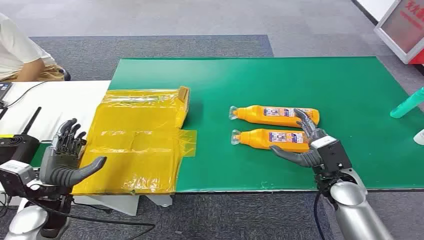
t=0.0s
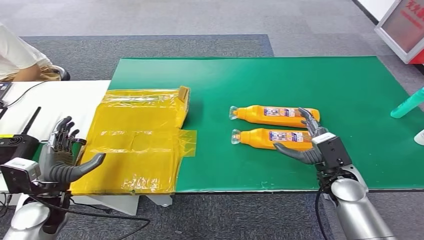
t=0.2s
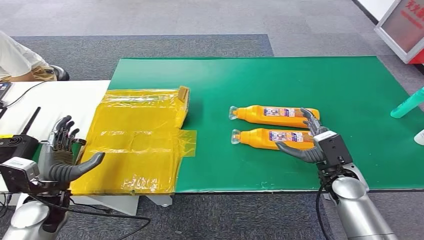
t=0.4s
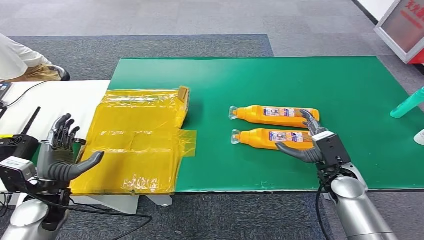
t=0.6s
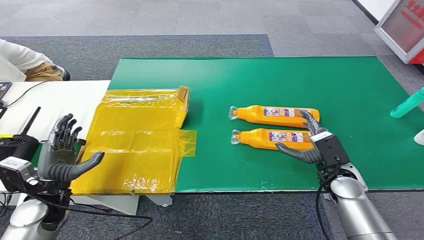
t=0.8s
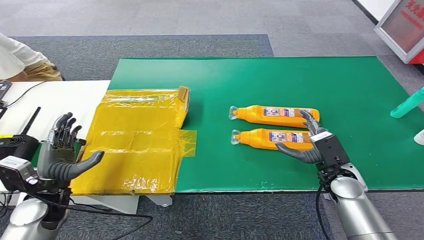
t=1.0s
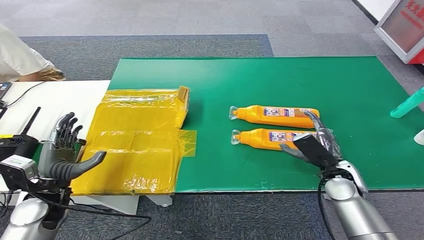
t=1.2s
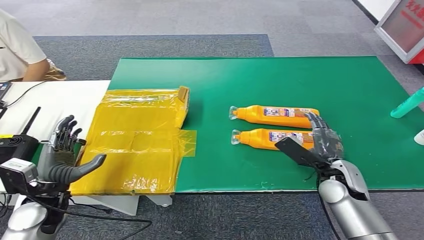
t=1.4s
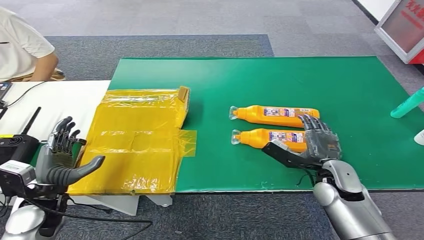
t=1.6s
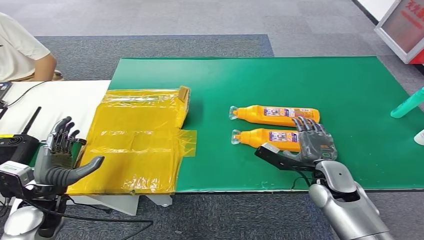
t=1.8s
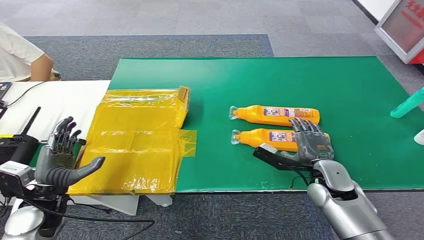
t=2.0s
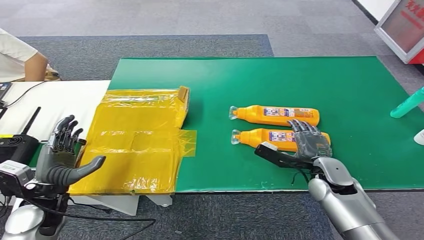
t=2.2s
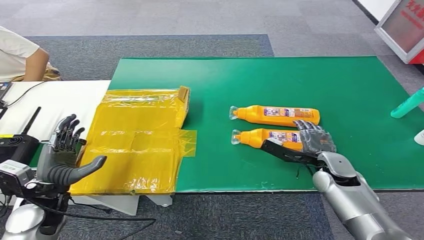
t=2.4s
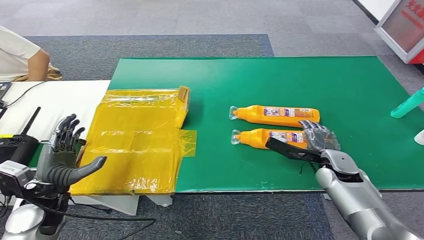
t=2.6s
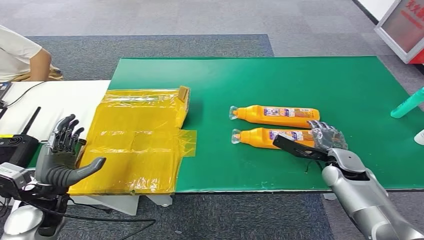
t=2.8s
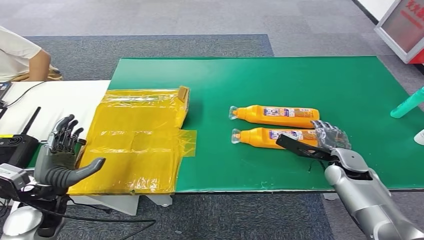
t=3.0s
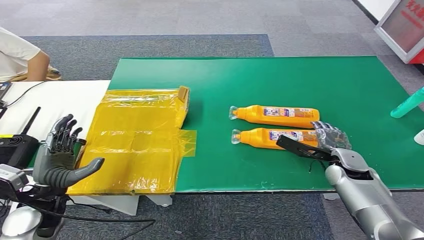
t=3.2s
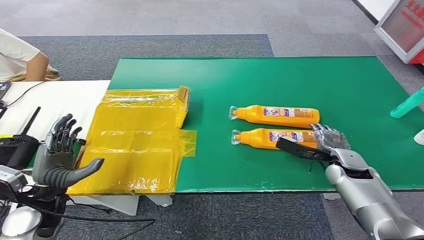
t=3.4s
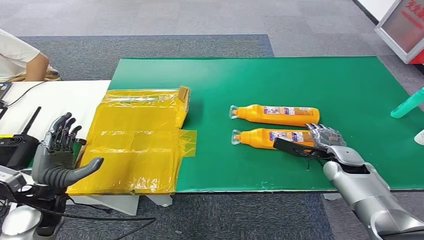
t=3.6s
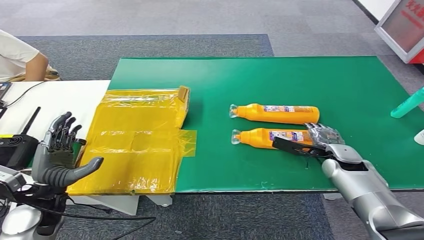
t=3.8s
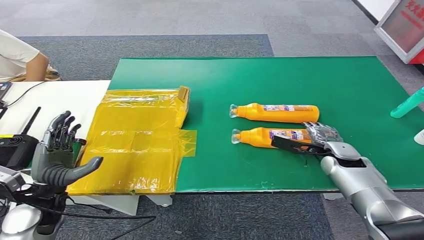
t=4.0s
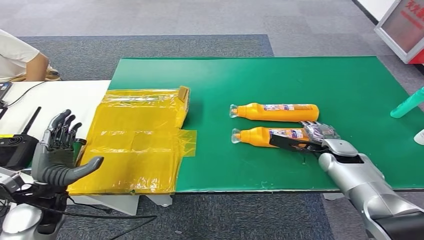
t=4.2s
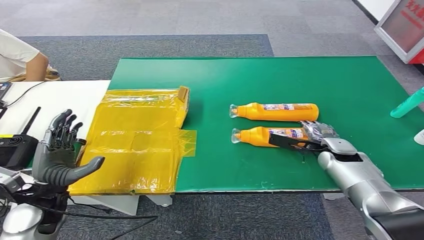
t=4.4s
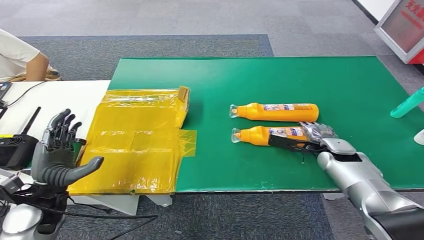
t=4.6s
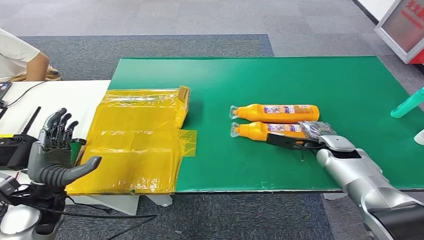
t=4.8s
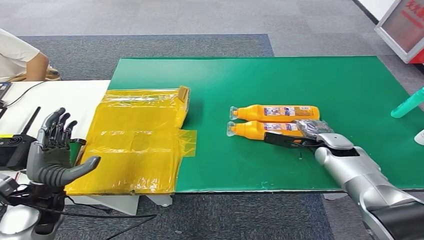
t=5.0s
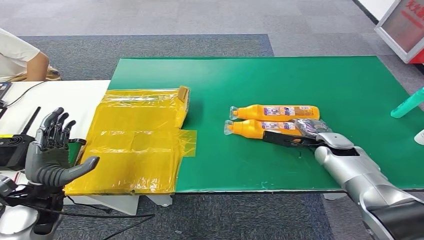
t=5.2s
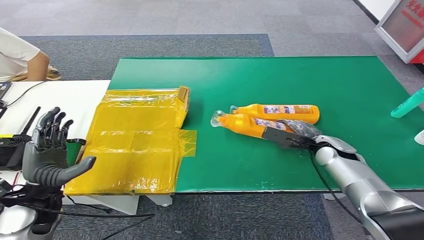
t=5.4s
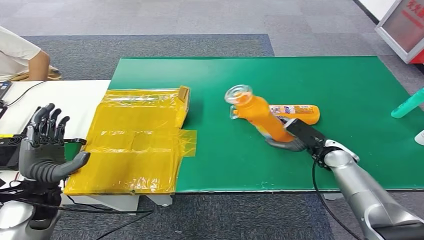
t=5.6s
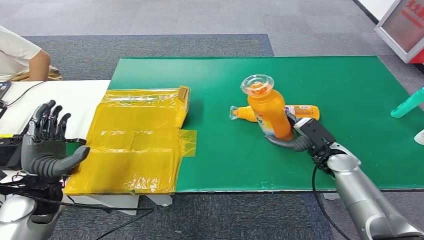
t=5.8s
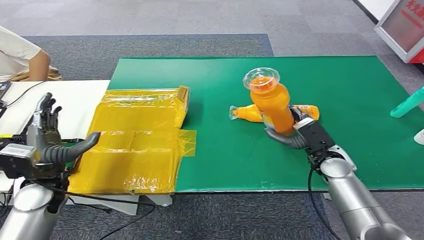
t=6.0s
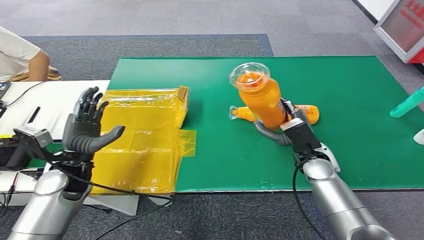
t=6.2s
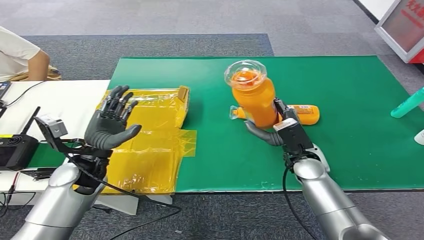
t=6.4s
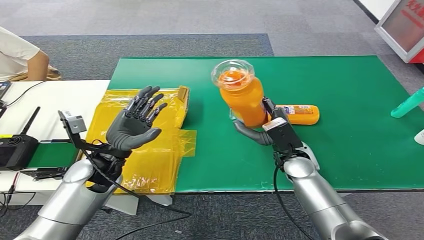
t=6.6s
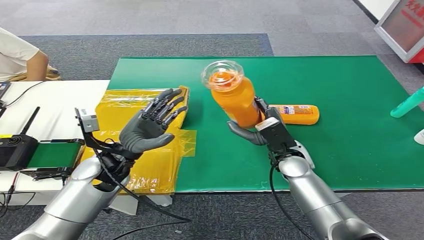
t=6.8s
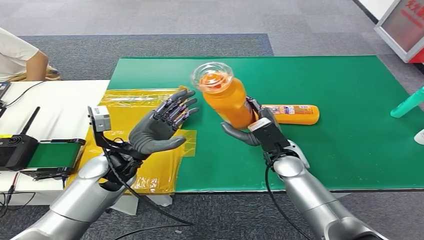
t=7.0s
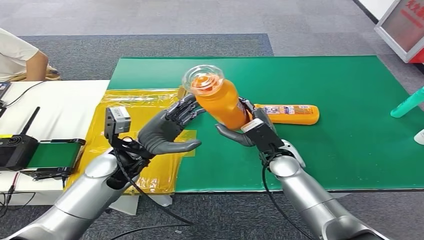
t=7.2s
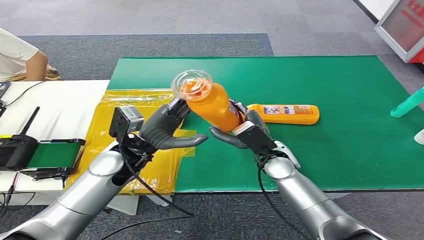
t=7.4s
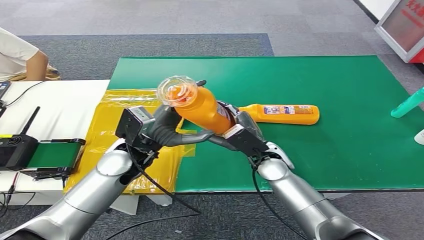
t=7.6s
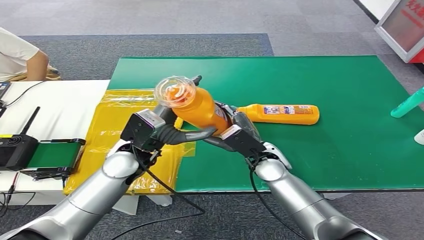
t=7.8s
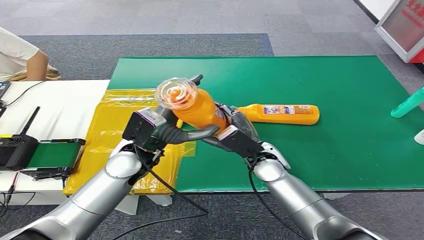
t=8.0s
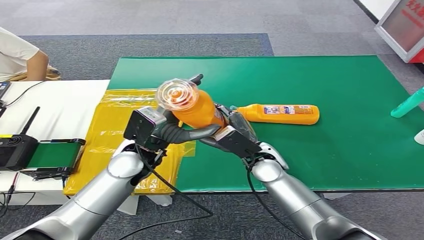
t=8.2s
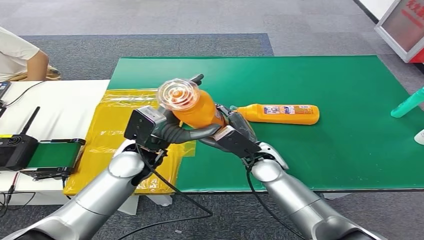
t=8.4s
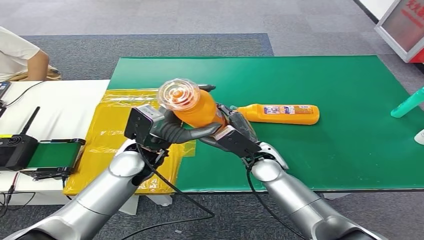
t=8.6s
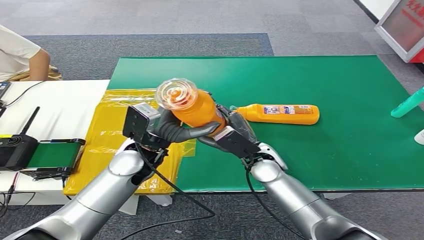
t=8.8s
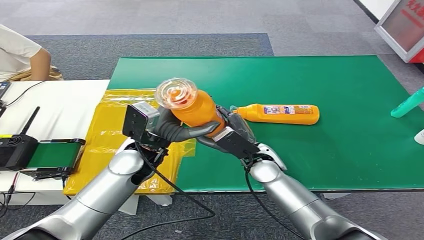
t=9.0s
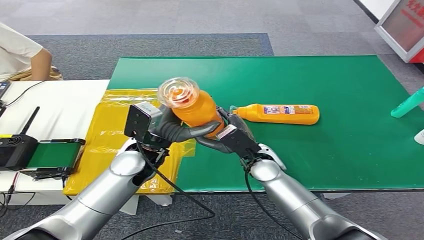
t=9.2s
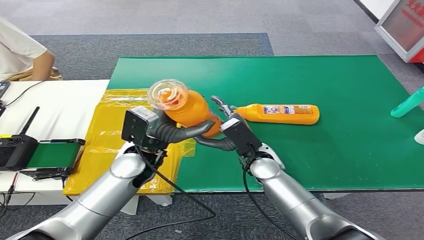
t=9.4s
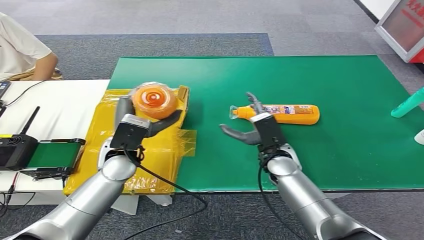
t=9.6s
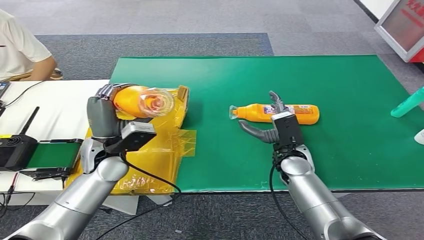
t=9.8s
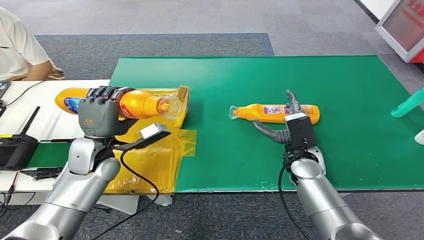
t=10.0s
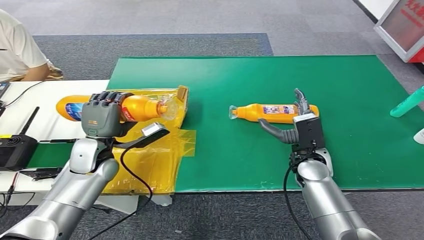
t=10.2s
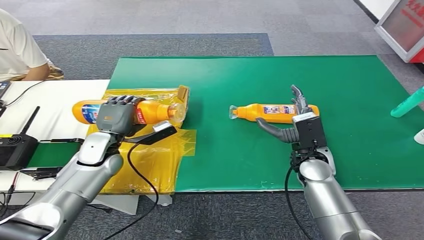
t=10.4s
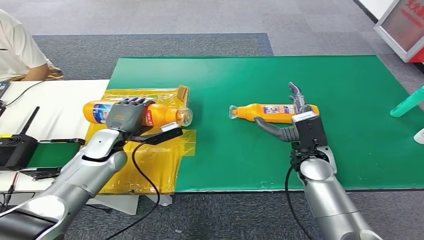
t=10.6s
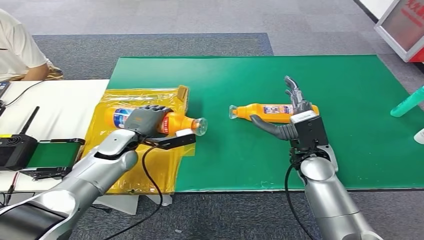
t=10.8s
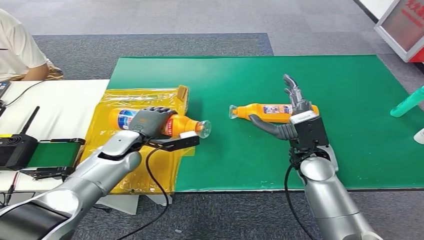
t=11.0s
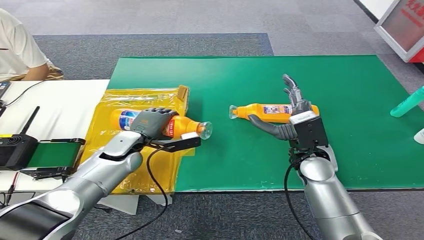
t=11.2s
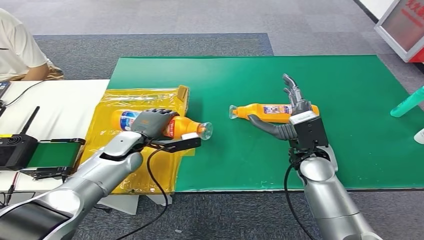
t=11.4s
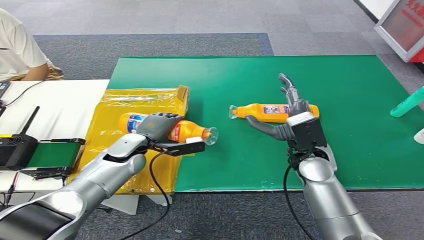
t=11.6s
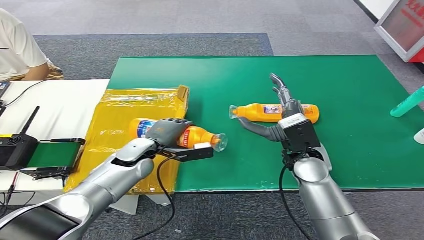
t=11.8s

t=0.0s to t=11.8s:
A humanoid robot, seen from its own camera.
Step, t=0.0s to t=6.2s: Pick up the bottle from the table.
t=1.4s to t=3.0s: The right hand is displaced forward by roughly 5 cm.
t=3.0s to t=4.4s: There are only small adjustments of the hands.
t=4.4s to t=6.0s: The right hand shifts by approximately 5 cm.
t=7.4s to t=8.8s: There are only small adjustments of the hands.
t=10.4s to t=11.8s: The left hand travels to the right by some 5 cm.

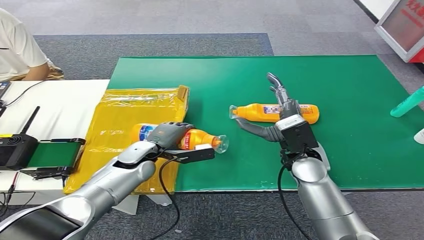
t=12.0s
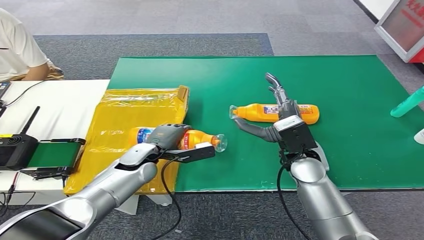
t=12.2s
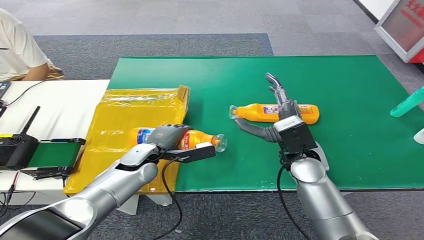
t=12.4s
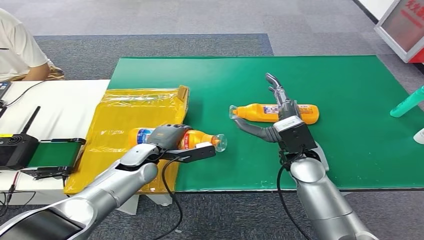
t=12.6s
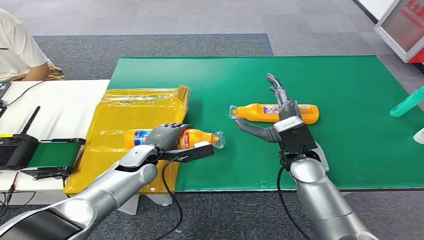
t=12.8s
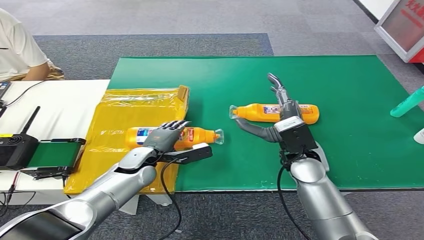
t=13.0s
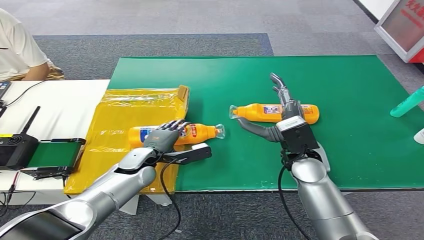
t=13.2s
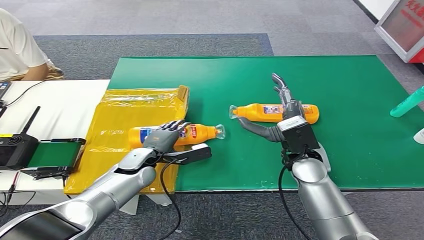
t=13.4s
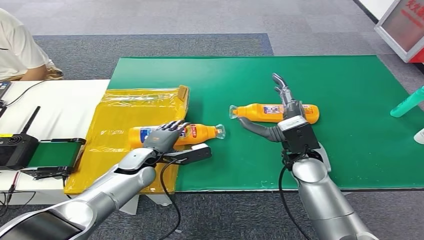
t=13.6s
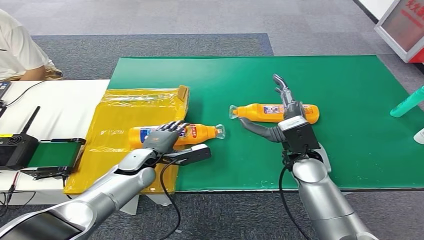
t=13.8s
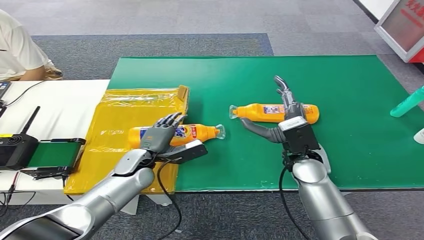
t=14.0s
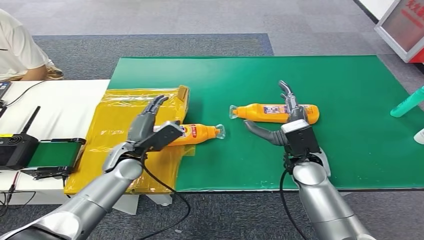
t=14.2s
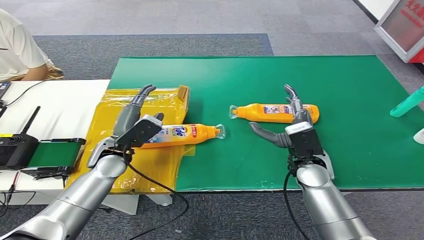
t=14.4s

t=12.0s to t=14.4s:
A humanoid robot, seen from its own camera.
Step, t=12.0s to t=14.4s: Turn the bottle to the front side.
t=12.0s to t=13.2s: There are only small adjustments of the hands.
t=13.2s to t=14.4s: The left hand heads upward, covering approximately 5 cm.

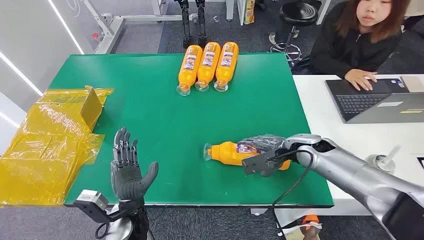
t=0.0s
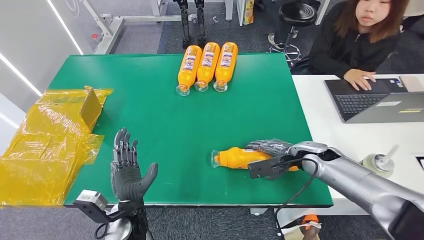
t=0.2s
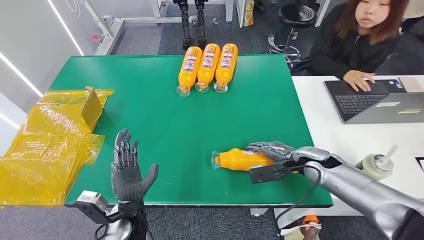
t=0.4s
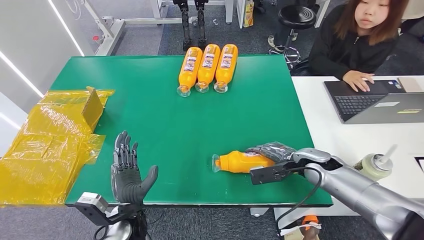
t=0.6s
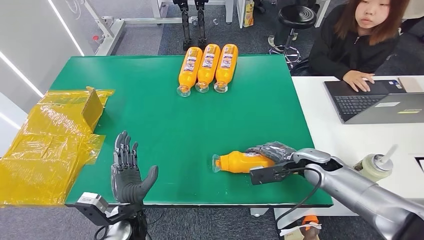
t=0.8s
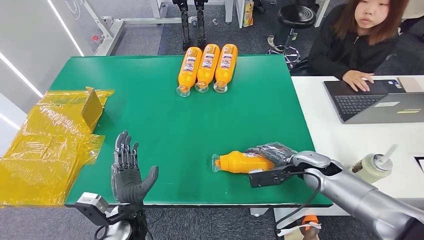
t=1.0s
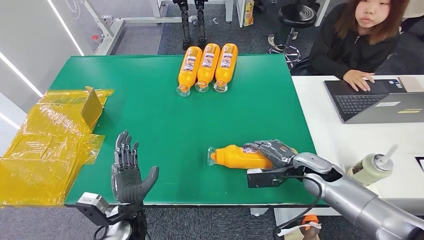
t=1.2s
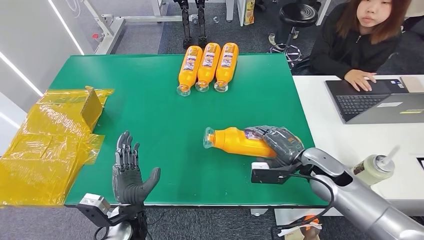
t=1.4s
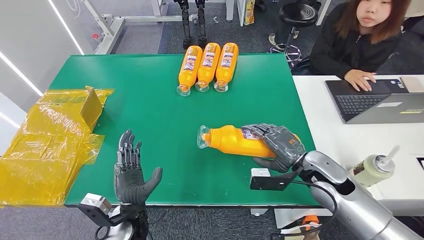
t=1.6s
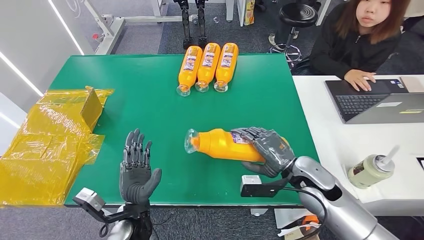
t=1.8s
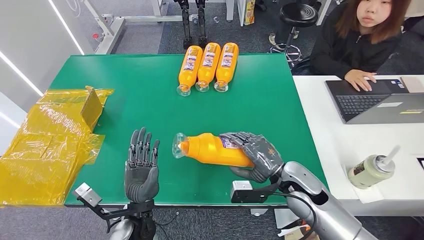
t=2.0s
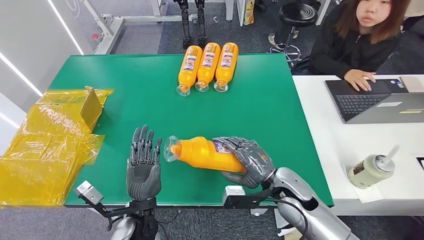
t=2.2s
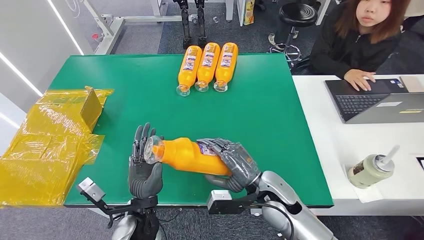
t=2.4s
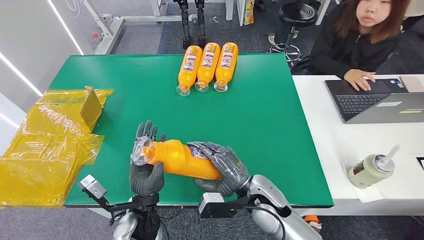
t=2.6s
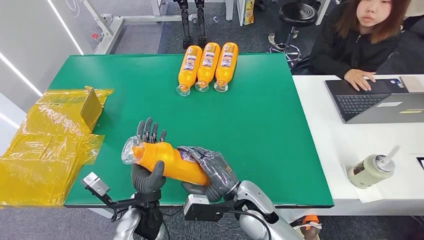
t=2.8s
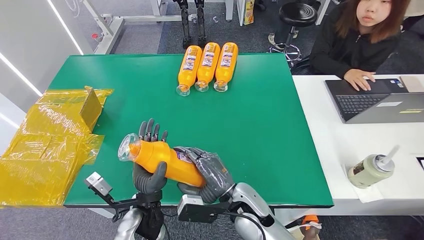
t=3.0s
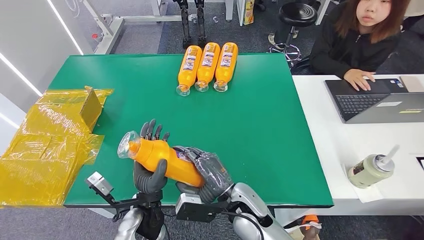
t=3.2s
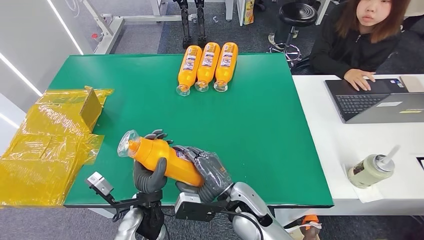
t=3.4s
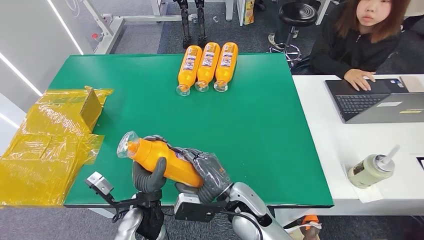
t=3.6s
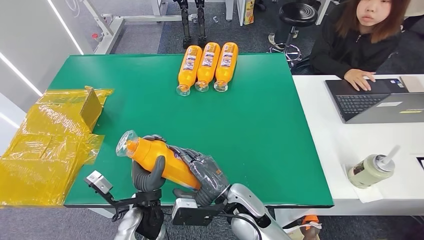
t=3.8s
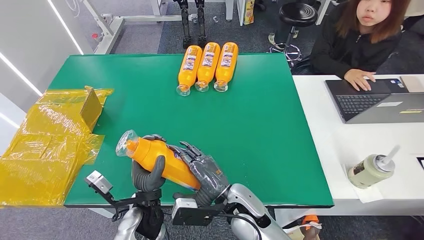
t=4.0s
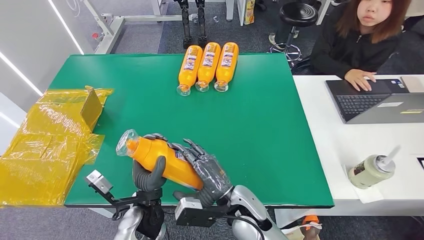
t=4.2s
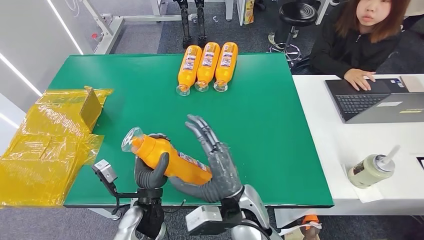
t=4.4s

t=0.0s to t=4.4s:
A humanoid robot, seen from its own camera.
Step, t=0.0s to t=2.0s: Pick up the bottle from the table.
t=1.4s to t=3.0s: The left hand ends up some 5 cm from where it was. The right hand heads to the left, covering approximately 20 cm.
